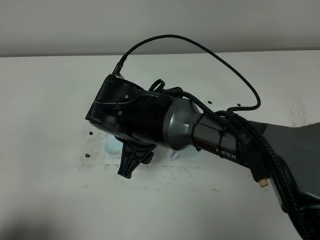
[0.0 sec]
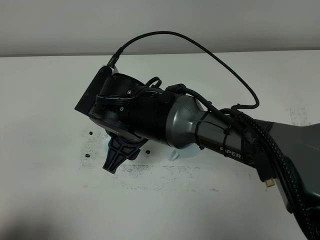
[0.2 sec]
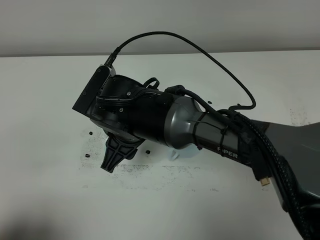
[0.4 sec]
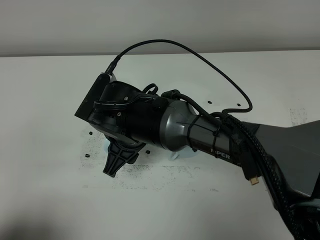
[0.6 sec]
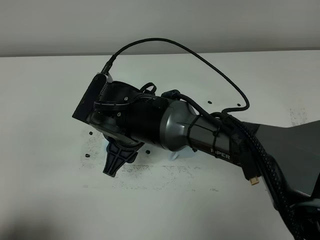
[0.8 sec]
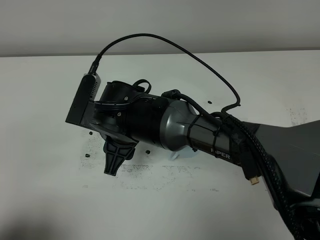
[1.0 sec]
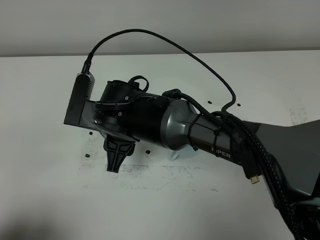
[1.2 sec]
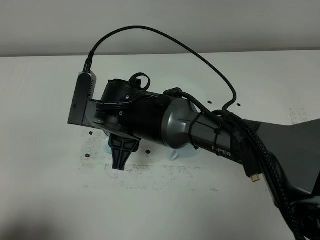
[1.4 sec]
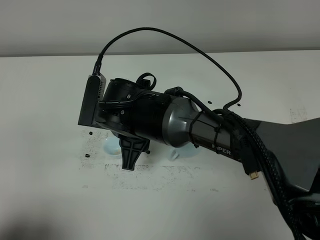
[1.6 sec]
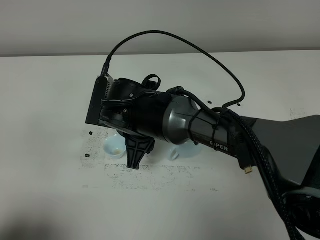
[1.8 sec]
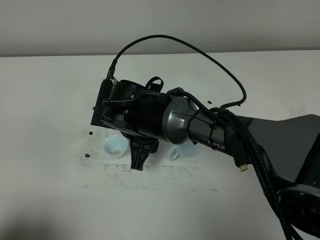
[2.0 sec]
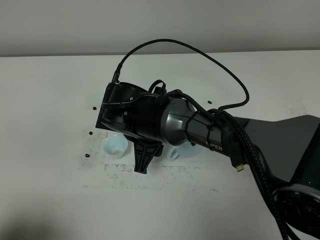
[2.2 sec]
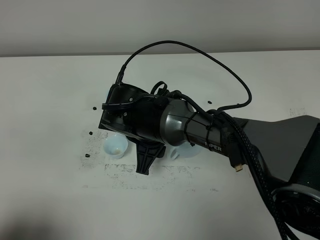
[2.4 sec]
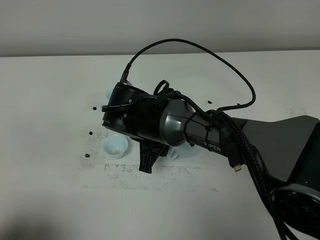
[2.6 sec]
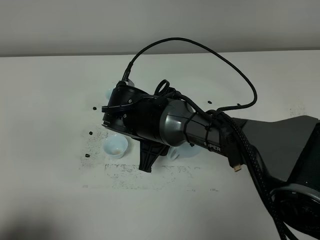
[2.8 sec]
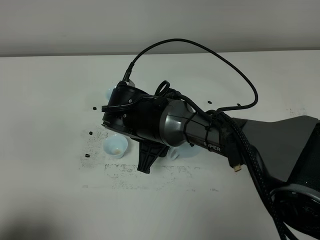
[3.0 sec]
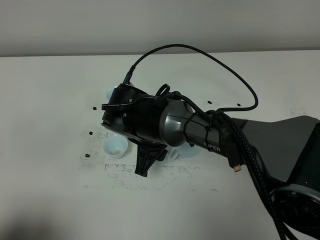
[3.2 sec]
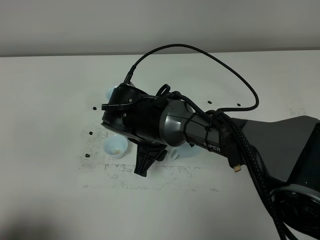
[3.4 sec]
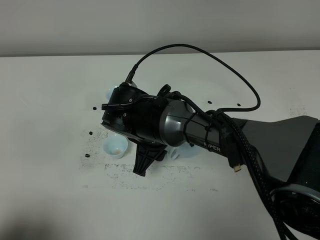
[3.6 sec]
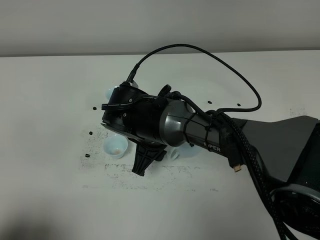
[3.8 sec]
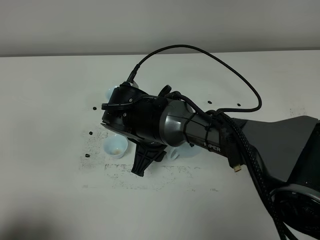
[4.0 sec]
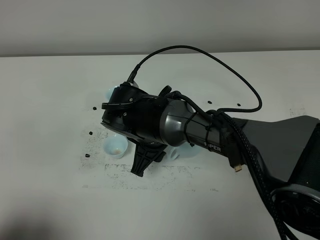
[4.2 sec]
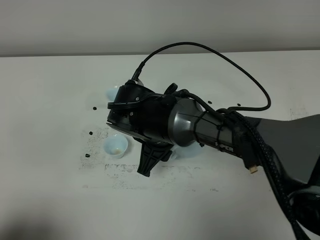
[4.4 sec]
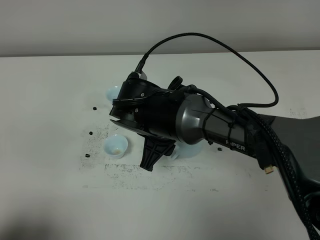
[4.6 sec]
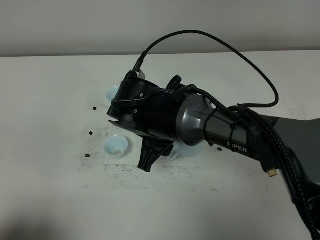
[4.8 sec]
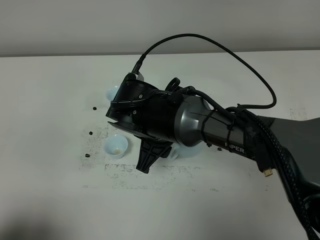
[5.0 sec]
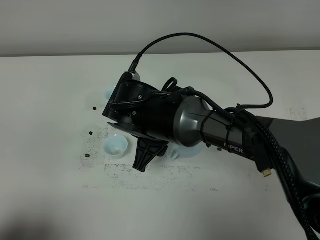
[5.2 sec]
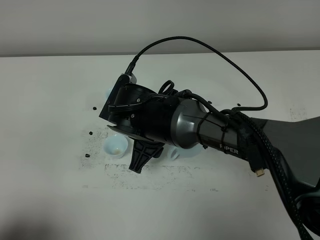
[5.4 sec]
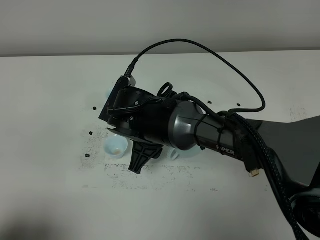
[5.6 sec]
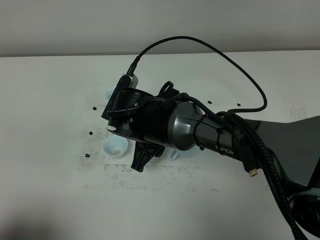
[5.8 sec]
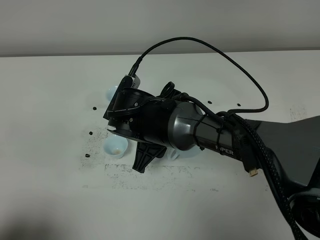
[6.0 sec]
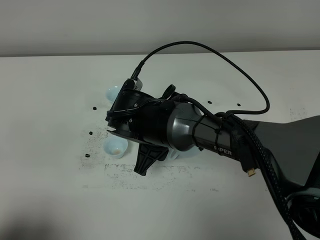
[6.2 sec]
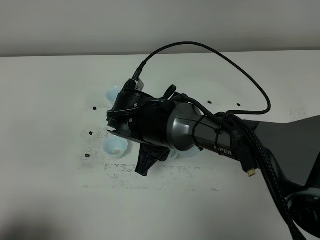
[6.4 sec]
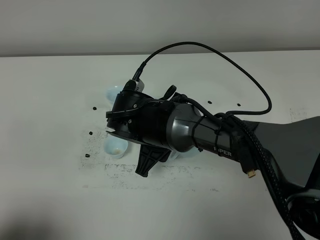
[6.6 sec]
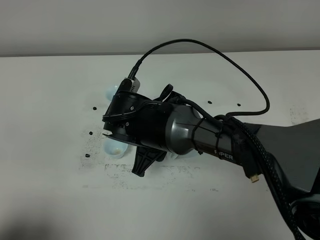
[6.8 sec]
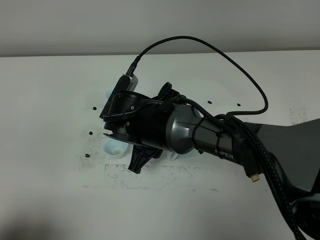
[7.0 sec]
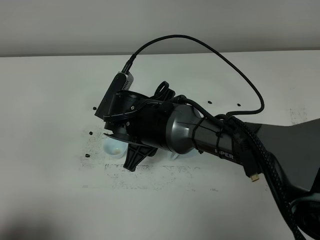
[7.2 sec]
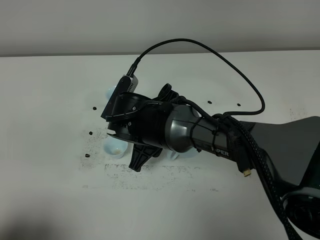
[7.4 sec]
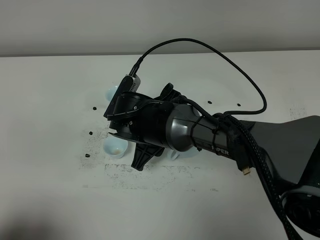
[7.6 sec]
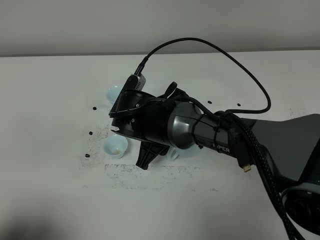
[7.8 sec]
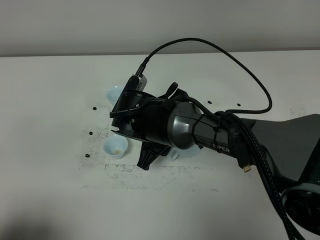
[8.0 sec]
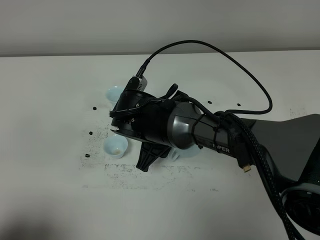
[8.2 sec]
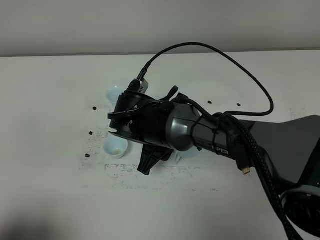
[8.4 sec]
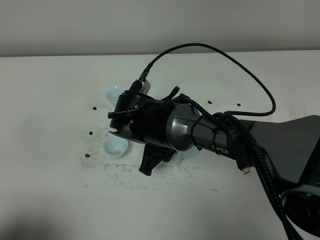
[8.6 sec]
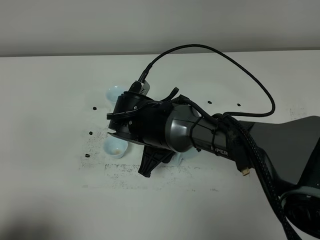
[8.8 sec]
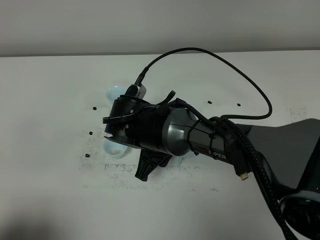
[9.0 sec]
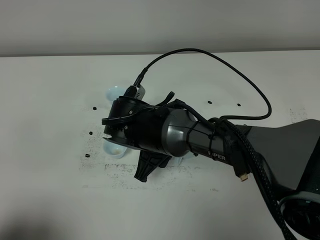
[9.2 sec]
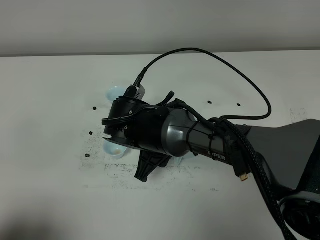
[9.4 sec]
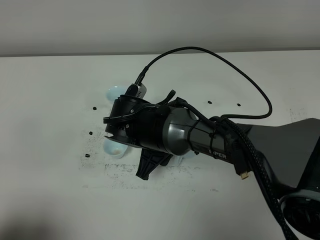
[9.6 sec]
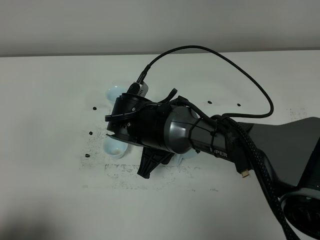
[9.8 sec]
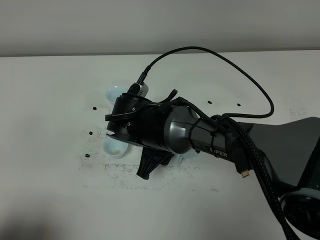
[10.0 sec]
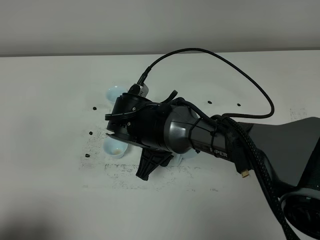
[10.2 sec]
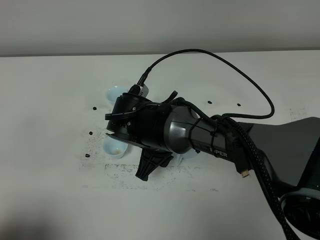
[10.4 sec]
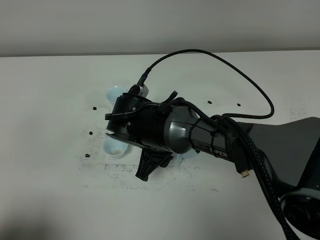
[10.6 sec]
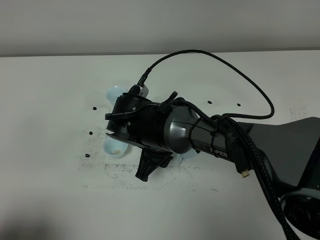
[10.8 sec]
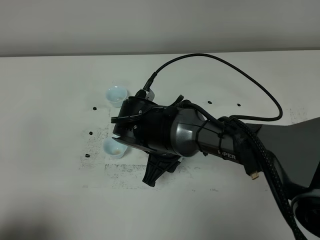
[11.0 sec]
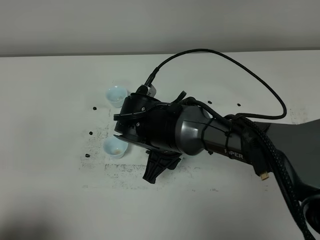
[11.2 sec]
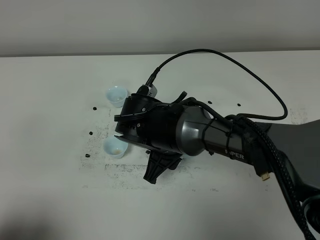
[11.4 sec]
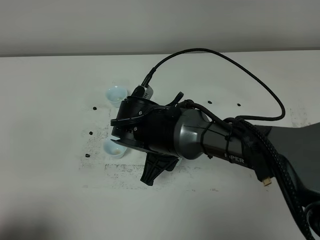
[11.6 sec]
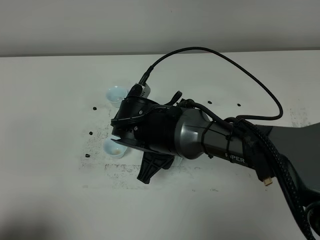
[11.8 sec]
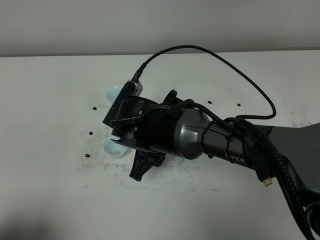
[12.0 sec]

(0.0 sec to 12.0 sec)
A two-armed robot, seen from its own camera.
Task of the whole recording: grasp the blue porcelain teapot and pour the tea into the two blue porcelain teacups one by one, put the blue porcelain teapot back in its original place.
1.6 sec - 3.0 sec: The grippers stay close to where they were, moving slightly.
3.0 sec - 9.0 sec: There are only small adjustments of the grippers.
9.0 sec - 10.4 sec: Neither gripper changes place.
10.4 sec - 12.0 sec: The grippers stay close to where they were, moving slightly.

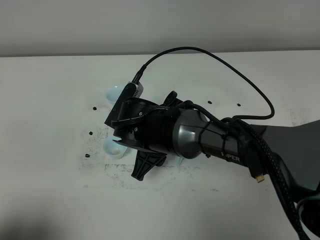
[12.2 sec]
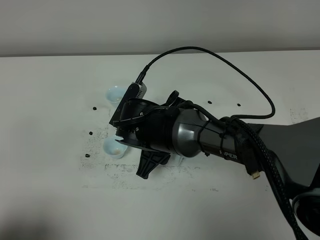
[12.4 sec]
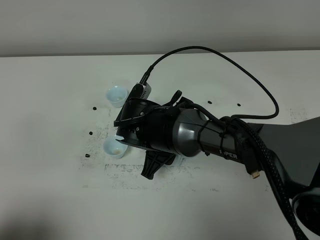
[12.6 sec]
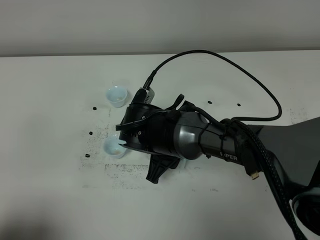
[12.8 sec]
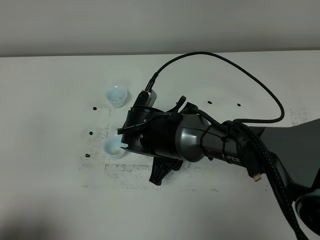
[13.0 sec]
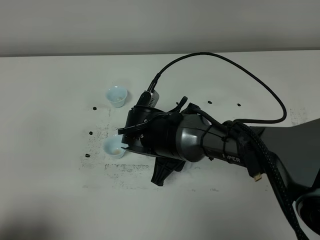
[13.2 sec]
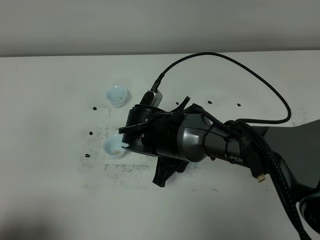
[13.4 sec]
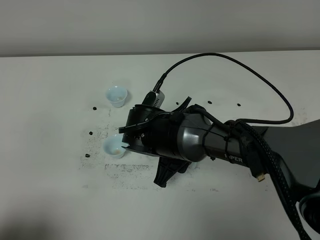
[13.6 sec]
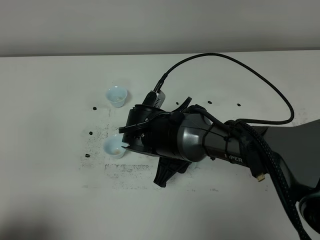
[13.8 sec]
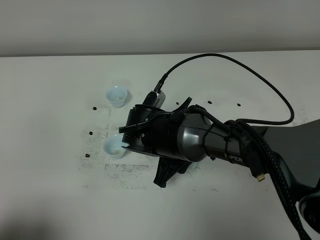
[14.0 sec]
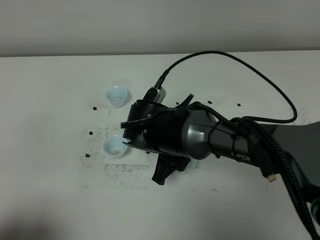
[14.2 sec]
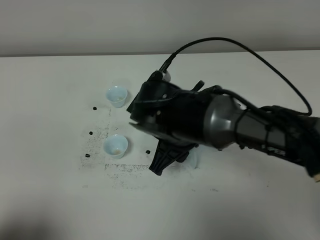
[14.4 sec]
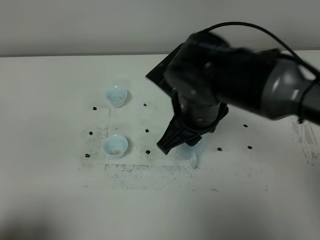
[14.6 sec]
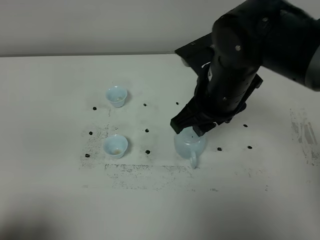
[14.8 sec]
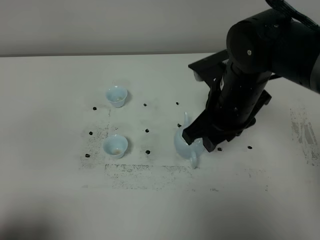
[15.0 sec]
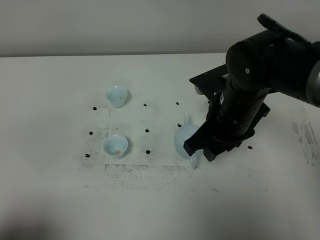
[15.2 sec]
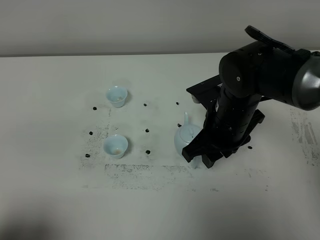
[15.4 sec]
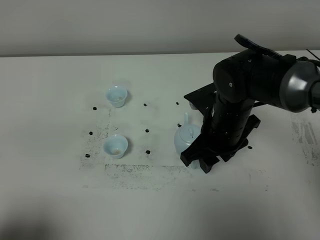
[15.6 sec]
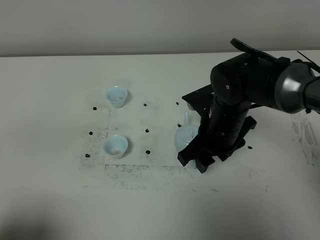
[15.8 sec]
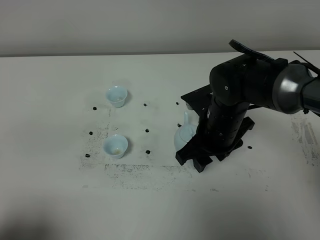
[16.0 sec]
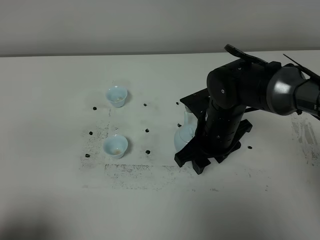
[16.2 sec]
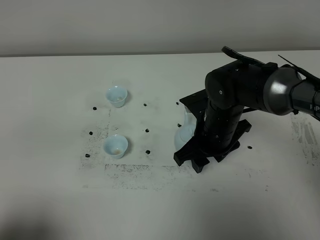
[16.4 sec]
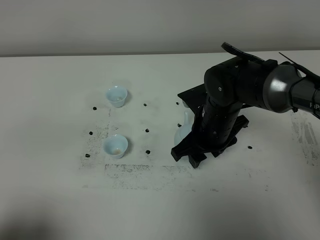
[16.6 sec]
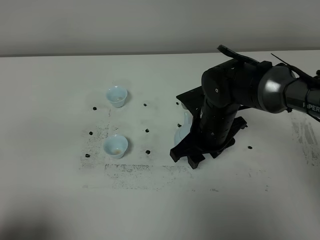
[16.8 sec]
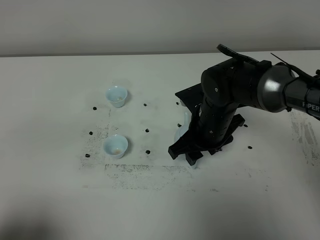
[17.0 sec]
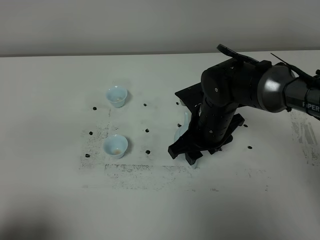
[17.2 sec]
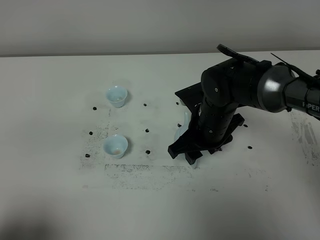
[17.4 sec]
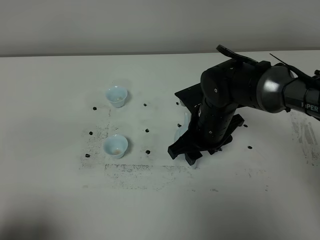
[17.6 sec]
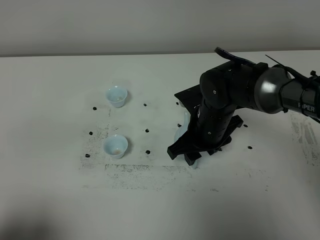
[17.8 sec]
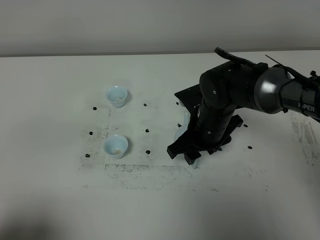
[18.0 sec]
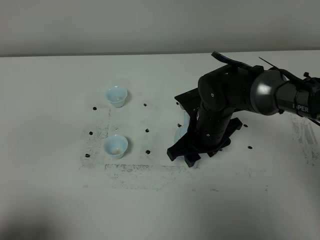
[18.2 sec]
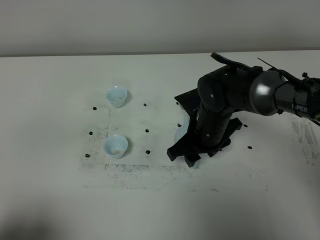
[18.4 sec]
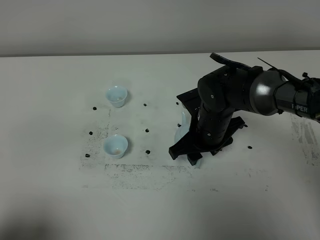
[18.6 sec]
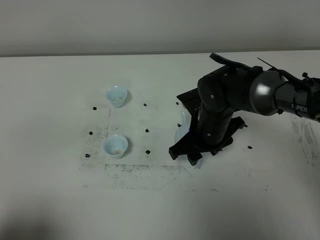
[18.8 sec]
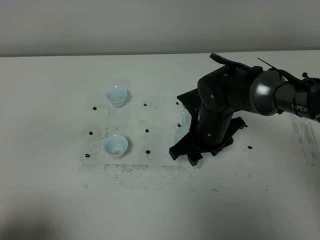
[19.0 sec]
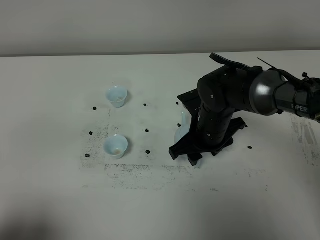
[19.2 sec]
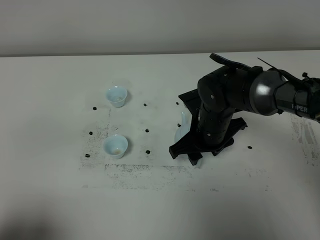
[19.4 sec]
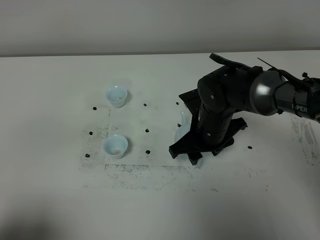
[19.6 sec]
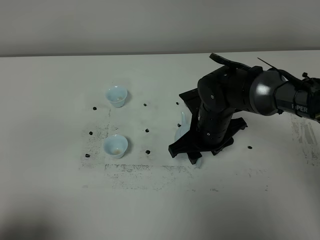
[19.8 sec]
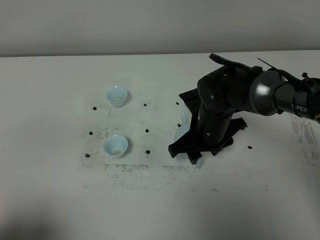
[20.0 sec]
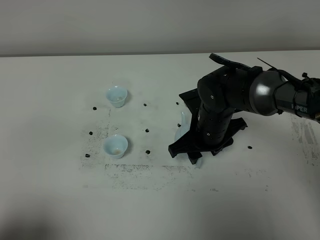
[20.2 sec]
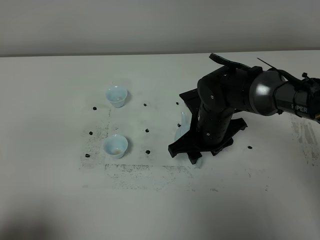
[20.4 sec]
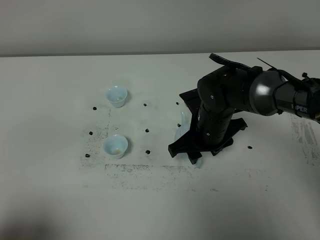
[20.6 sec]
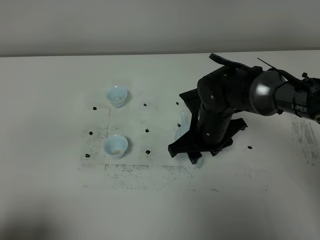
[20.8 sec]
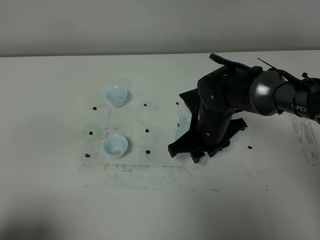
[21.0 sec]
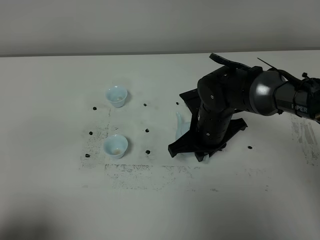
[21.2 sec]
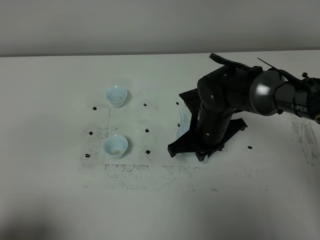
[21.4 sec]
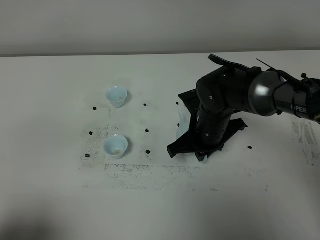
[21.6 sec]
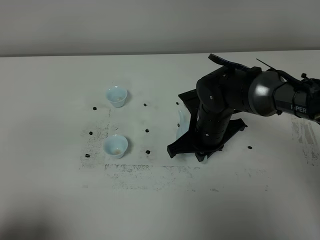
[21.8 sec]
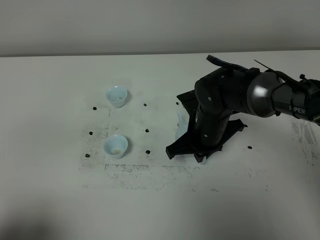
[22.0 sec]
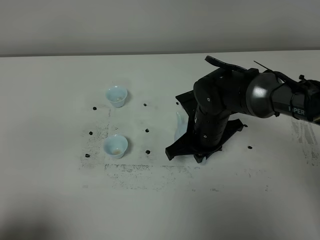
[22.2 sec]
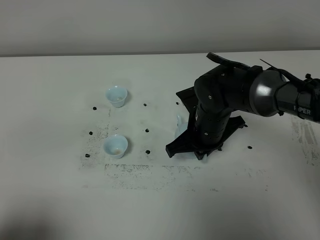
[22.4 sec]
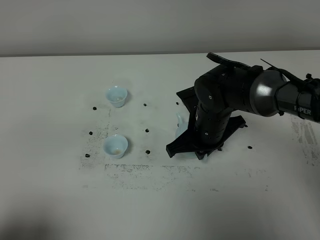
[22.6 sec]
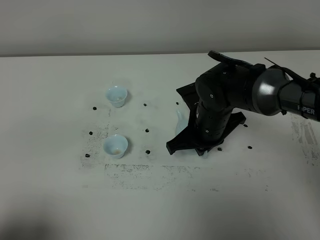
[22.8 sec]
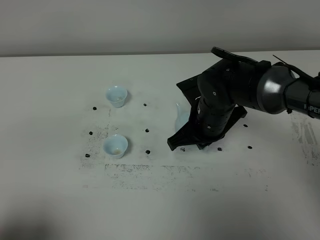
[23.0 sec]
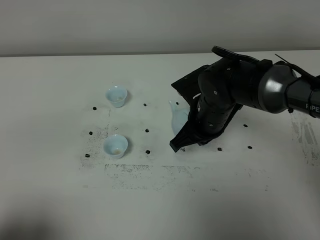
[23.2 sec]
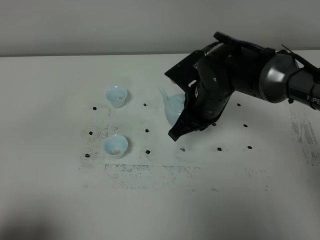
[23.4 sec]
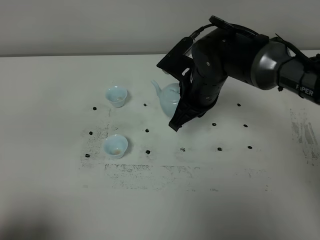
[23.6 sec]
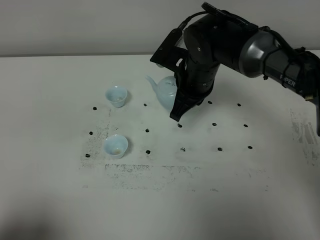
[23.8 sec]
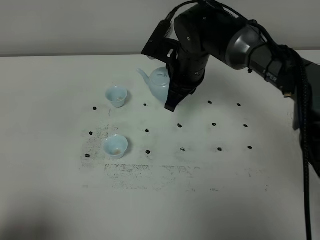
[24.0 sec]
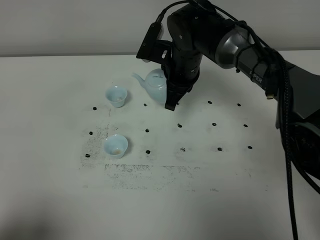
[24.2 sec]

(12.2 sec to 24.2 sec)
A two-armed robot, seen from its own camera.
Task of the whole recording: grasp the blue porcelain teapot and pour the tea into the two blue porcelain teacups one by one, put the blue porcelain teapot back in its original place.
Step, 12.2 sec - 23.0 sec: Pick up the teapot with the right gripper.
12.2 sec - 13.8 sec: The grippers move only a little.
13.8 sec - 15.2 sec: The right gripper moves to the right and upward, about 15 cm.
15.2 sec - 16.6 sec: The right gripper shifts approximately 5 cm downward.
16.6 sec - 19.8 sec: There are only small adjustments of the grippers.
21.2 sec - 22.6 sec: Both grippers stay about where they are.
22.6 sec - 24.2 sec: The right gripper goes some 10 cm forward and upward.
